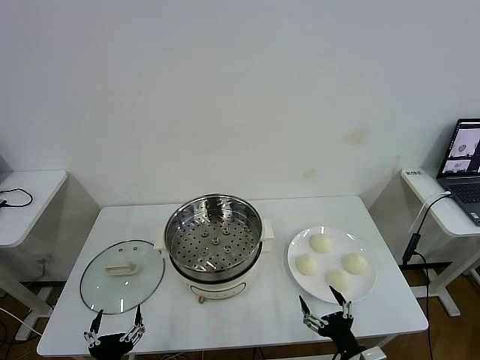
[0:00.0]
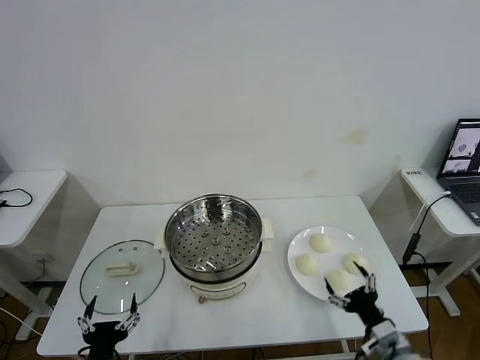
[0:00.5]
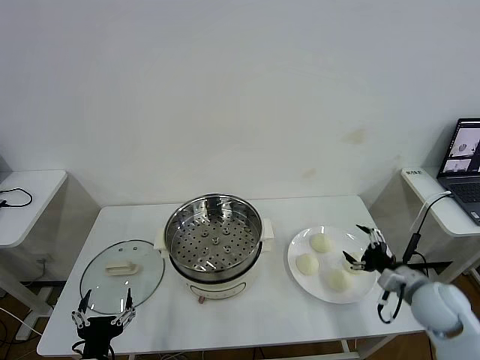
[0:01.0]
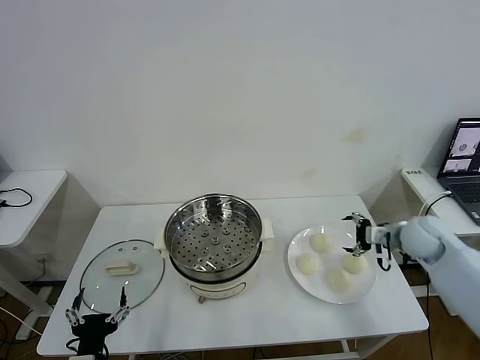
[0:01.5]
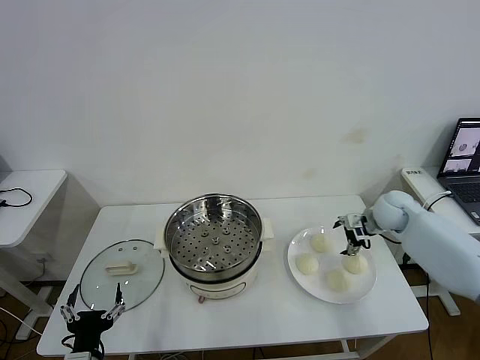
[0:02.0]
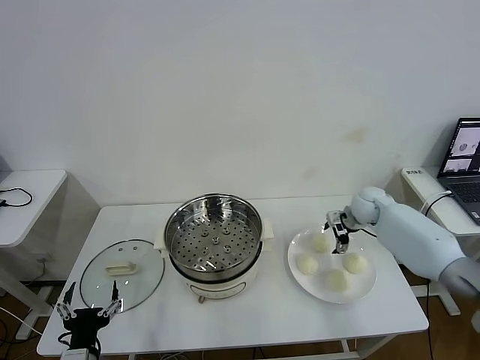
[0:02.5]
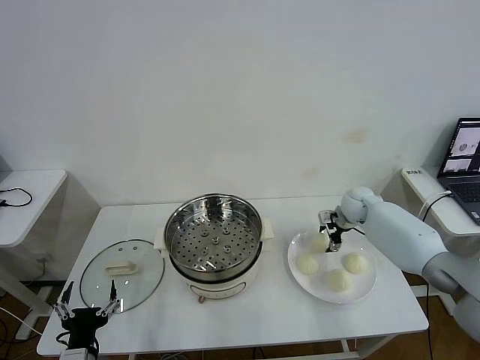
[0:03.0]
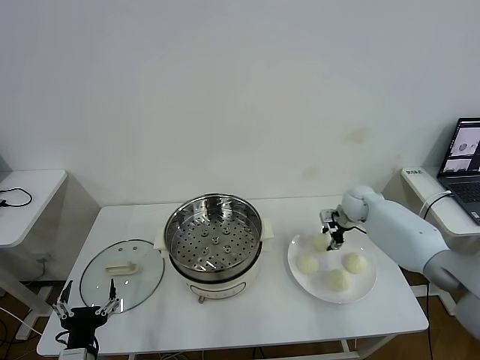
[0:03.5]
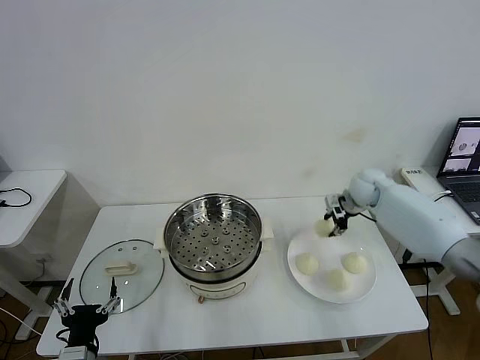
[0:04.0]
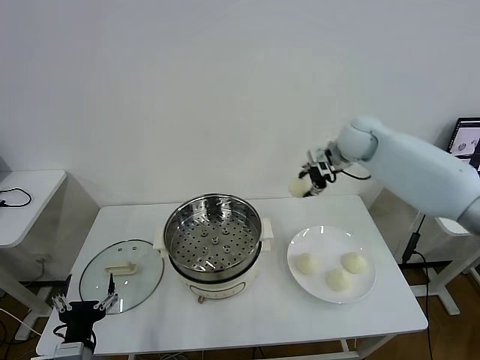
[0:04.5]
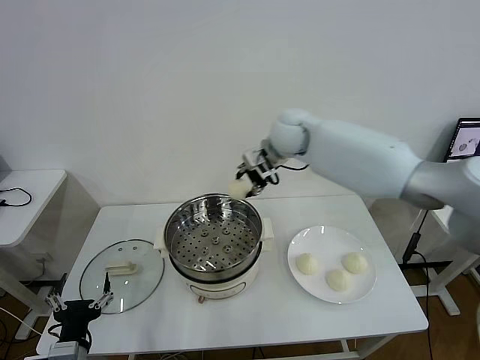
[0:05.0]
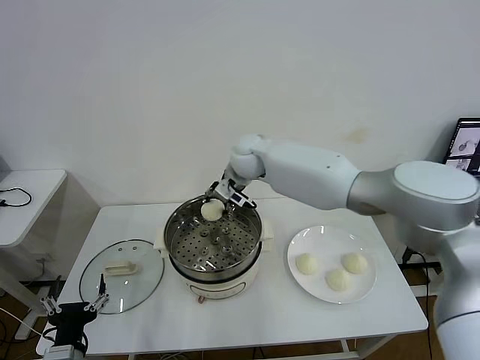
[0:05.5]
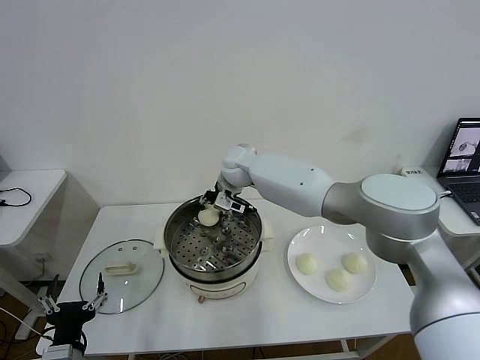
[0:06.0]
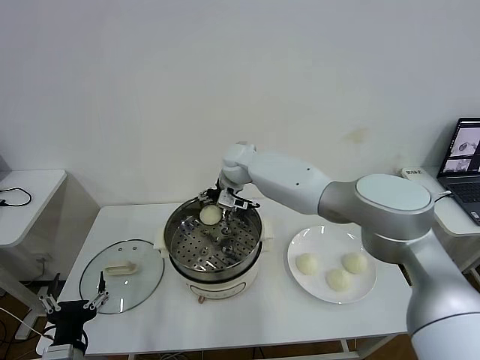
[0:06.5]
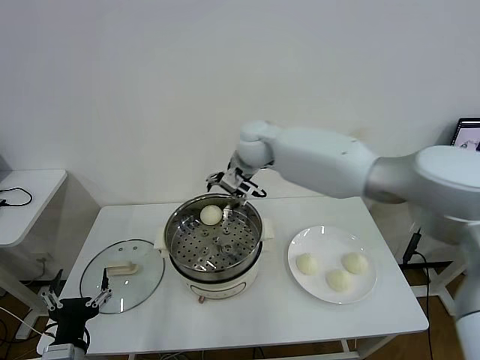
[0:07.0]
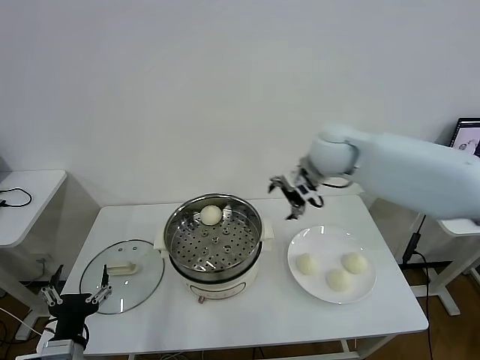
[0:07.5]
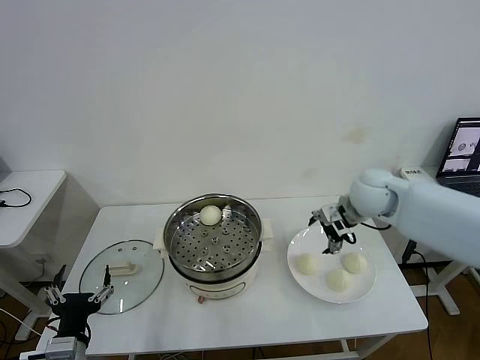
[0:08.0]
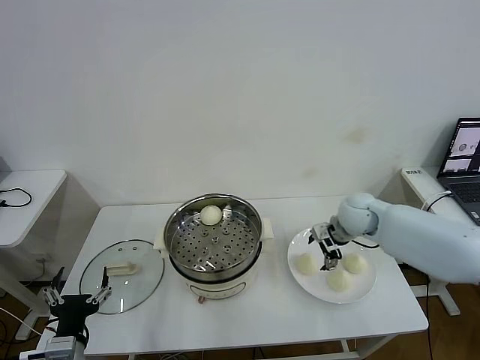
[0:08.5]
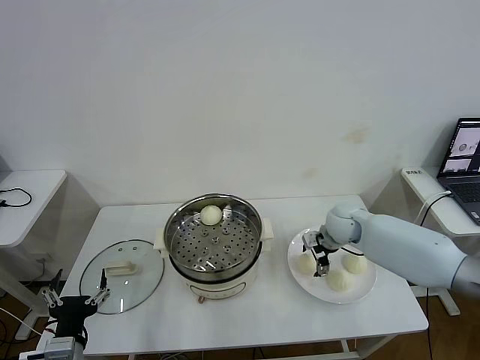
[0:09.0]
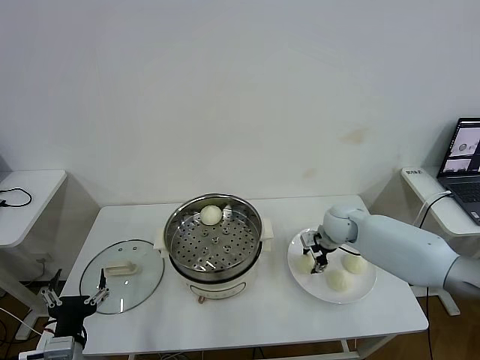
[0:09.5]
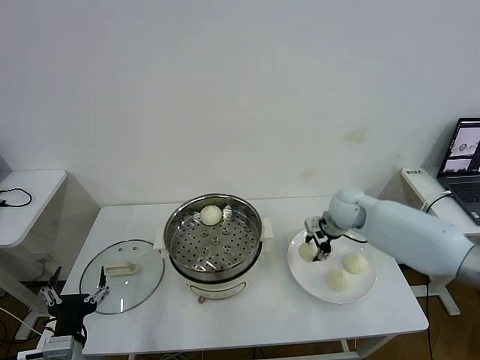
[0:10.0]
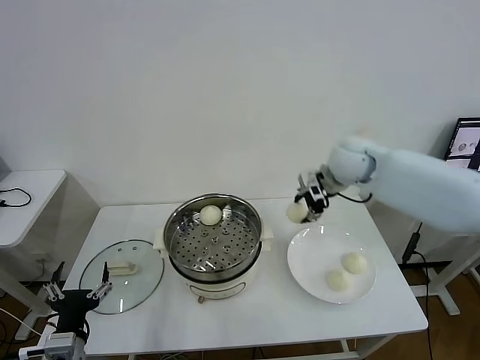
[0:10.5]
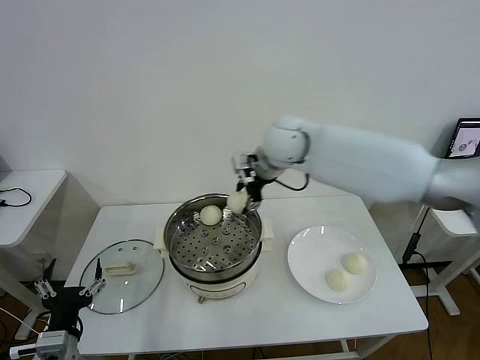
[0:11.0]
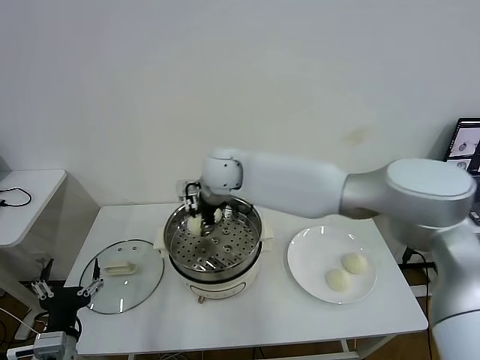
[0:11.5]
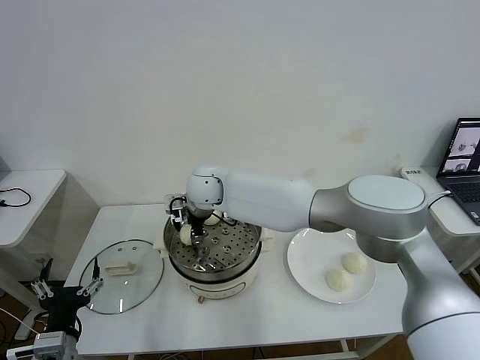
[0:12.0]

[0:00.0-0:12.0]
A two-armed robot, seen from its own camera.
Task of the whole recording: take steamed baozi put them in steamer then cover it.
Step, 0:00.0 to 0:03.0: Grasp the baozi in the plate with right gripper.
Step, 0:03.5 to 0:06.5: Place the baozi on the steamer with right gripper.
Step, 0:07.0 to 0:09.0: Grasp the baozi in the plate with right gripper.
0:02.0 to 0:04.0: The right gripper is displaced upward by some 10 cm, and closes up.
0:04.0 to 0:06.0: The right gripper is displaced to the left by some 35 cm.
0:06.0 to 0:08.0: The right gripper heads to the right, covering approximately 30 cm, and opens.
0:08.0 to 0:10.0: The right gripper closes.
0:10.0 to 0:12.0: The right gripper travels to the left by about 35 cm.

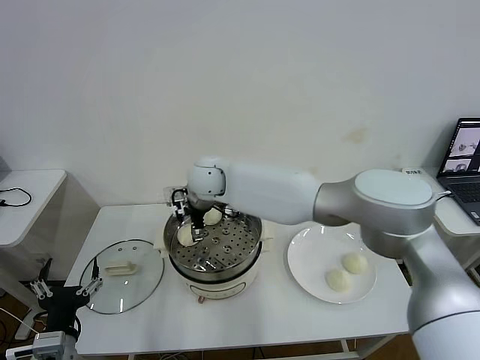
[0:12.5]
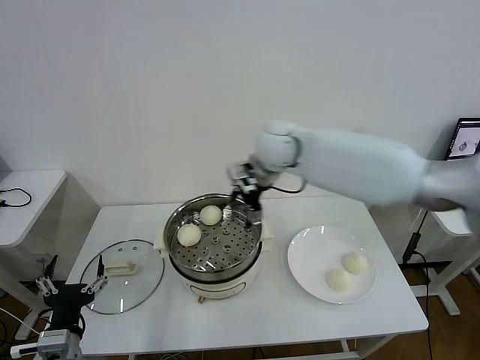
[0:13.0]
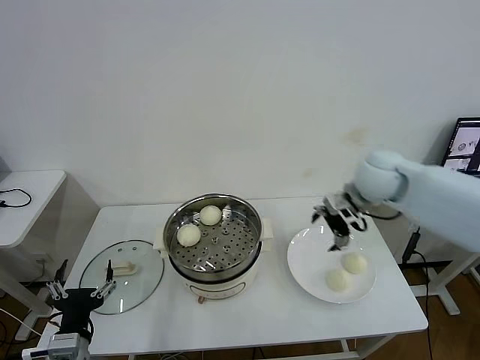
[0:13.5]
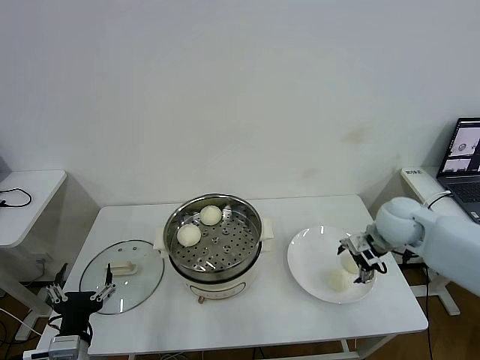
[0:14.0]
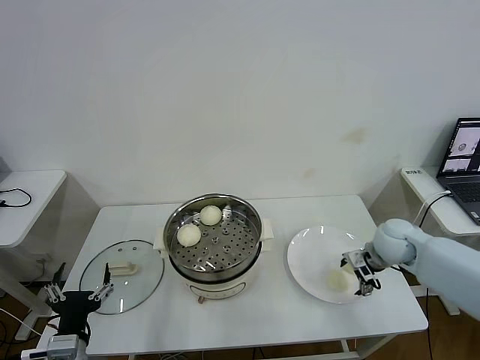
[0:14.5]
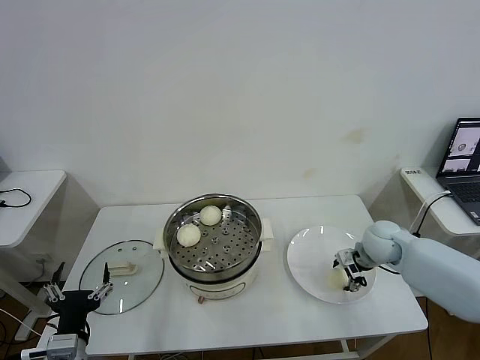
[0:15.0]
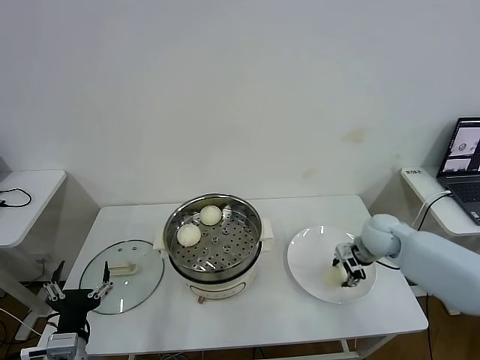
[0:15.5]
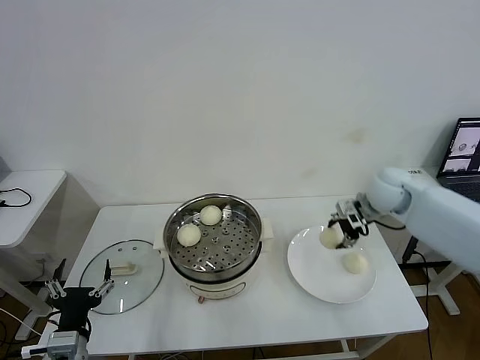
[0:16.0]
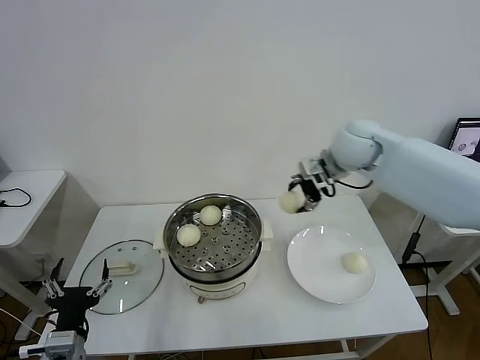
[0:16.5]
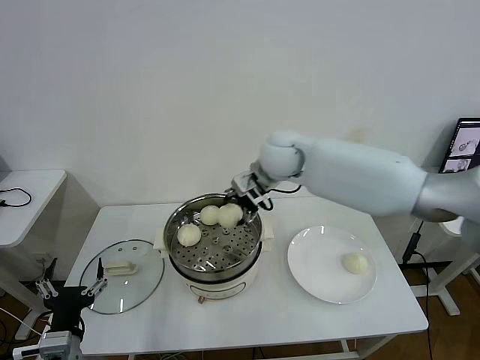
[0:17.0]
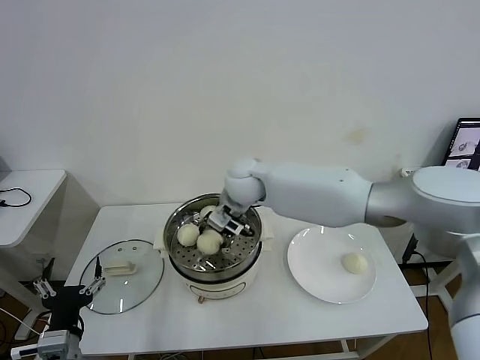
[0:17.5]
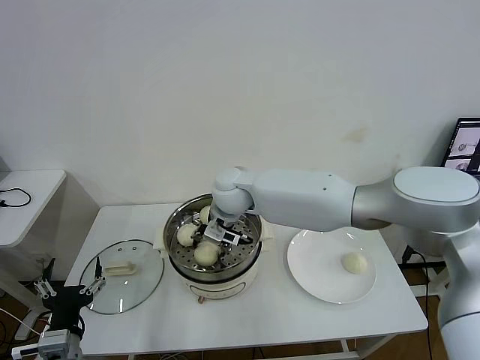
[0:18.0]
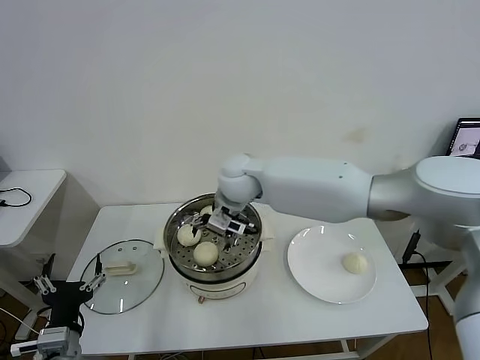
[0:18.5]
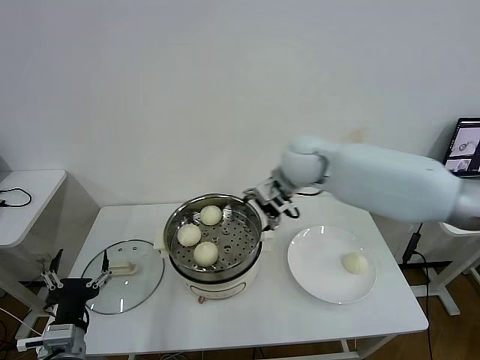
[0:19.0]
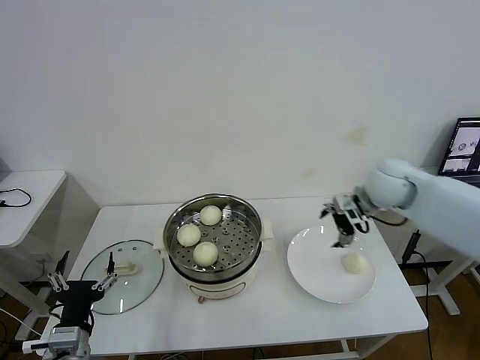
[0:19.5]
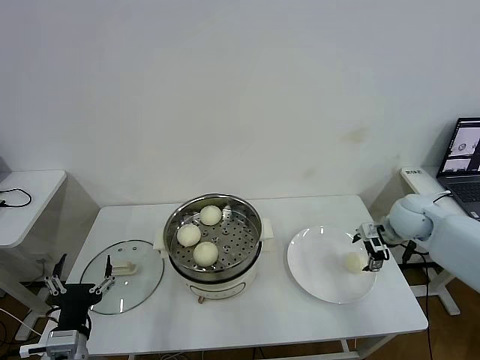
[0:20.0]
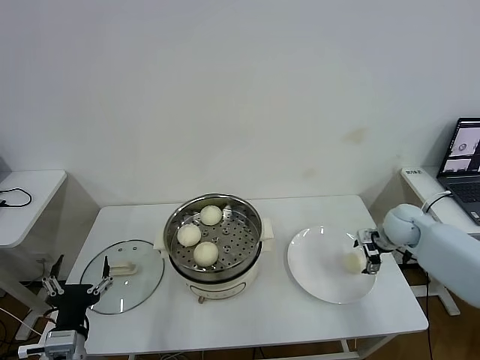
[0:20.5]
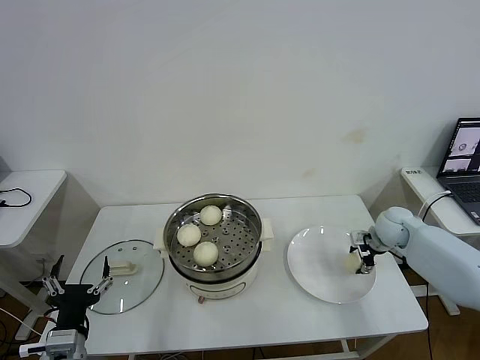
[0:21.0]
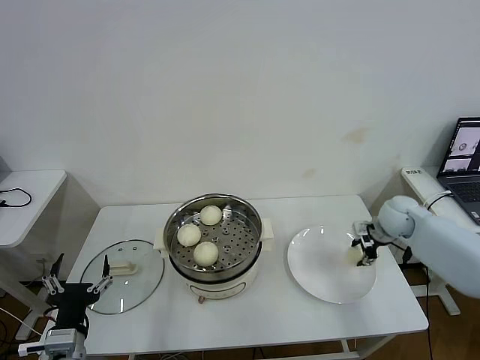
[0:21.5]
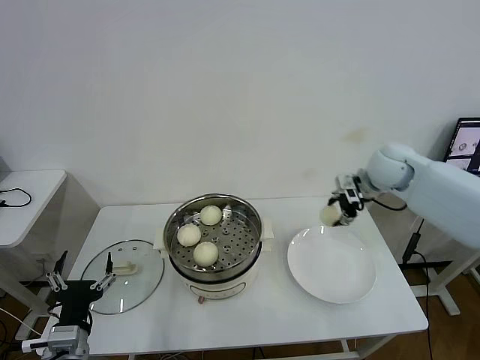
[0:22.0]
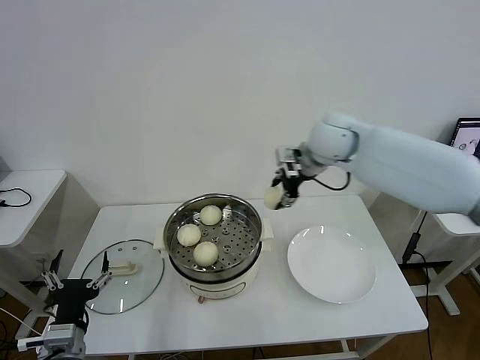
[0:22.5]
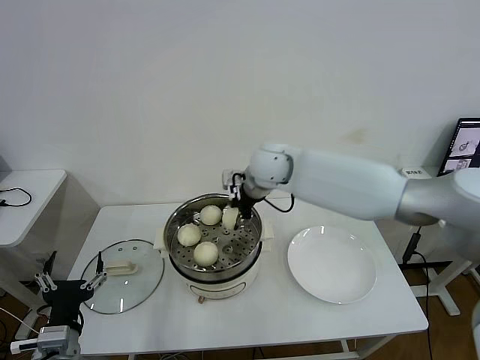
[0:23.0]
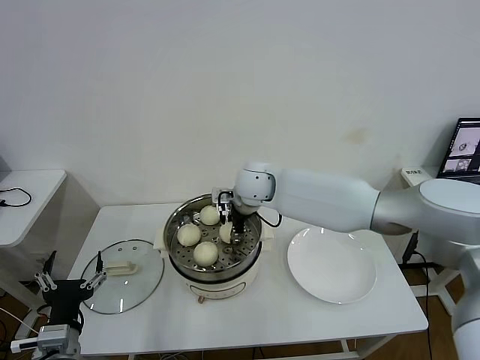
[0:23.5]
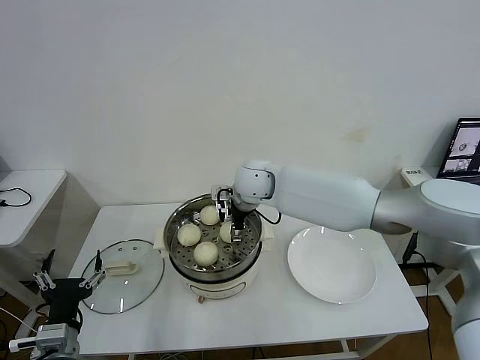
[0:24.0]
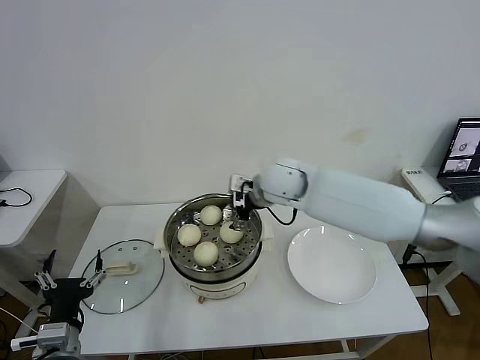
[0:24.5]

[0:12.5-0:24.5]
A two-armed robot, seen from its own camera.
Task of the whole recording: take steamed baozi put them in steamer then cover it.
Step, 0:12.5 to 0:15.0: Grasp the baozi in the plate with right gripper.
Step, 0:15.5 to 0:18.0: Place the baozi on the steamer with right gripper.
Step, 0:18.5 to 0:21.0: Grasp the baozi in the plate with right gripper.
Step, 0:21.5 to 0:23.5: Place the baozi on the steamer with right gripper.
0:12.5 to 0:14.5: The right gripper travels to the right by some 40 cm.
0:14.5 to 0:16.5: The right gripper moves upward, to the left and forward, about 25 cm, and closes.
0:16.5 to 0:18.5: The right gripper travels to the left by roughly 20 cm, and opens its fingers.
0:18.5 to 0:20.5: The right gripper travels to the right by approximately 40 cm.
0:20.5 to 0:22.5: The right gripper heads to the left and upward, covering roughly 30 cm, and closes.
0:22.5 to 0:24.5: The right gripper shifts roughly 10 cm to the left and downward, and opens.

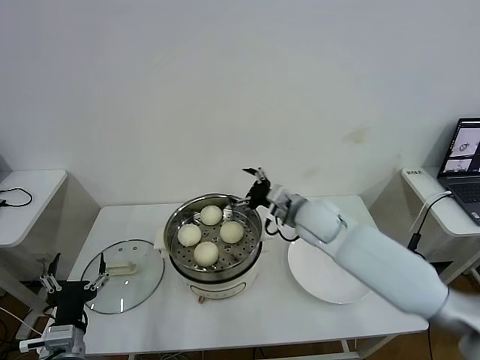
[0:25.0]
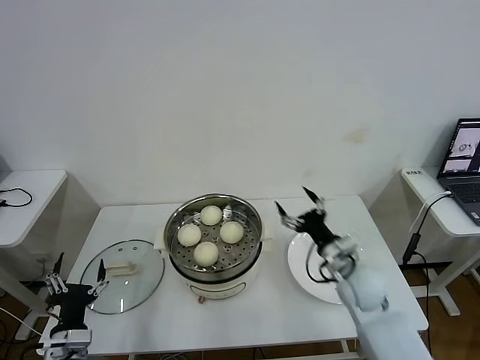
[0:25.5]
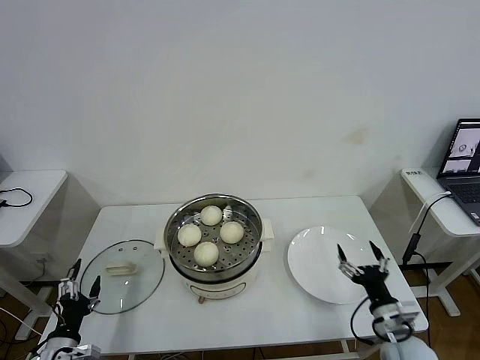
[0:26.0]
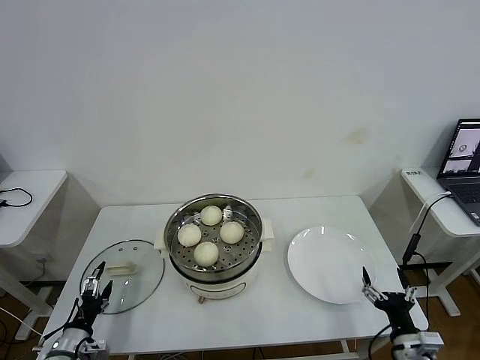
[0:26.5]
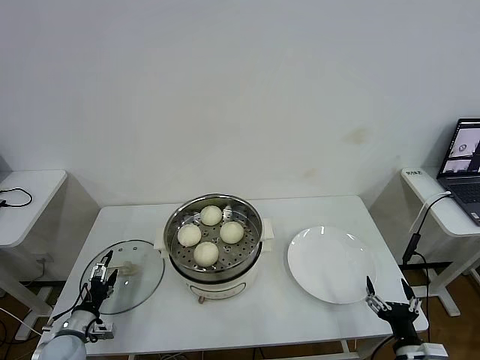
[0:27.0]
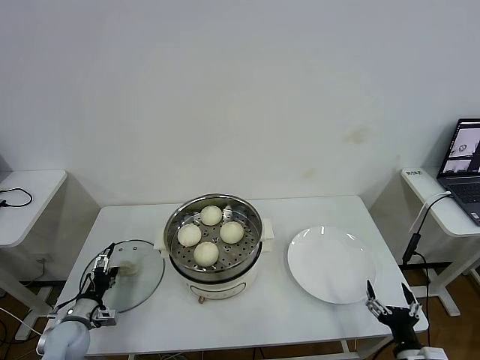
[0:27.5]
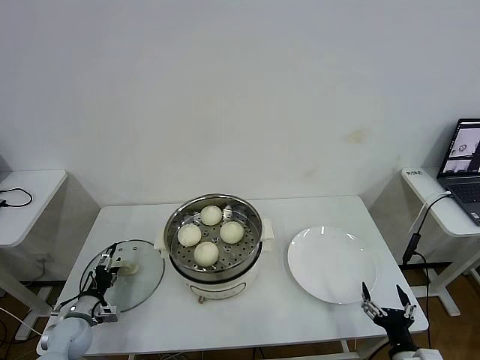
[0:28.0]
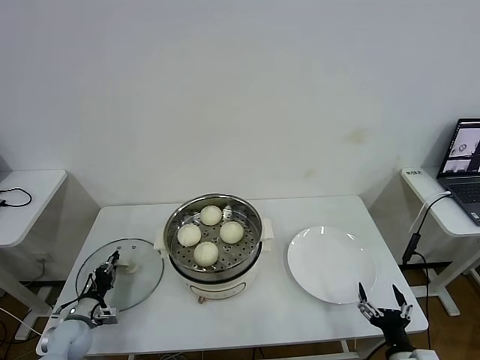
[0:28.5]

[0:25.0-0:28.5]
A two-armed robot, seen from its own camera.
Task of the whole recording: take steamed baozi put them in steamer then cover it.
0:25.0 to 0:27.0: The left gripper moves downward, to the left and forward, approximately 20 cm; the right gripper travels backward, to the right and downward by about 40 cm.
0:27.0 to 0:28.5: The left gripper ends up roughly 5 cm from where it was, and closes its fingers.
